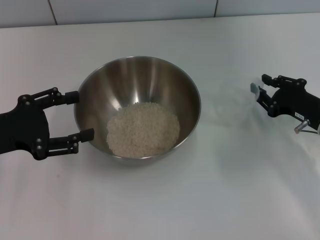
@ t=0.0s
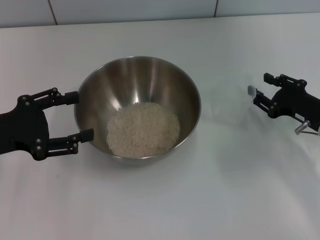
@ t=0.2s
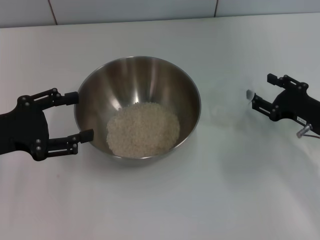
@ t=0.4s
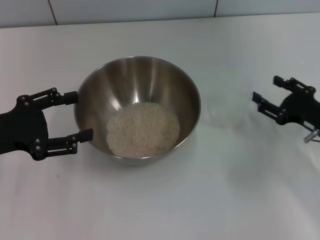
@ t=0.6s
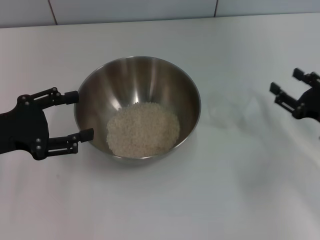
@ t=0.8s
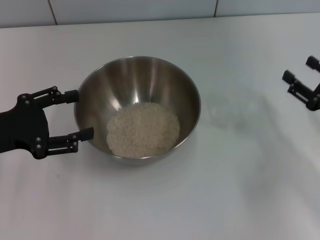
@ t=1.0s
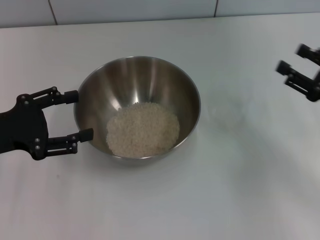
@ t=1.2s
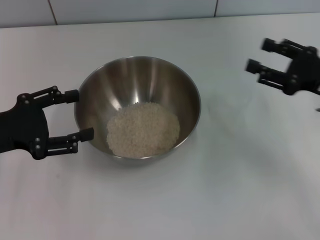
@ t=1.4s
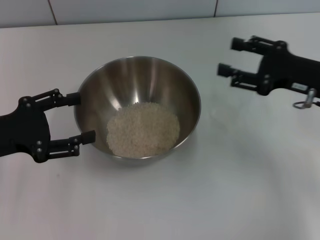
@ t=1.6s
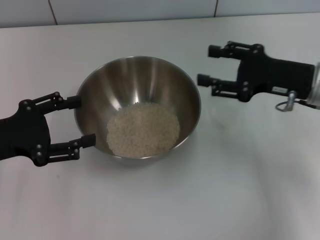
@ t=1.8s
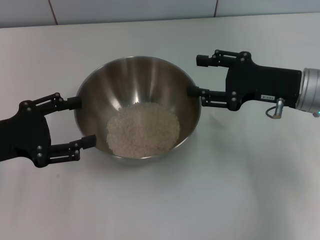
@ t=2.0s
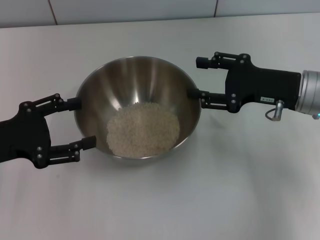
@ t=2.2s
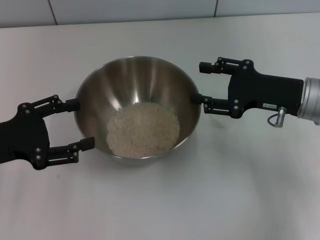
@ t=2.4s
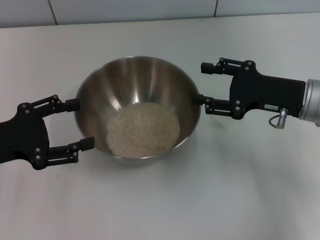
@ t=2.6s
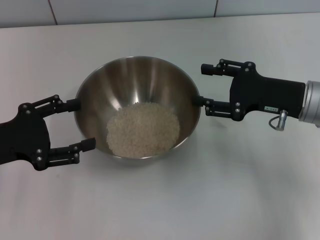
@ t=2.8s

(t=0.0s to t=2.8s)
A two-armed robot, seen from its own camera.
Task of the whole recording: Place the bowl in the middle of the table with one hand and pour the rice from the grain cup into it with the other hand.
t=0.0s - t=1.4s: The right gripper heads upward, covering roughly 10 cm, and opens its fingers.
t=1.4s - t=2.8s: The right gripper goes about 5 cm to the left.

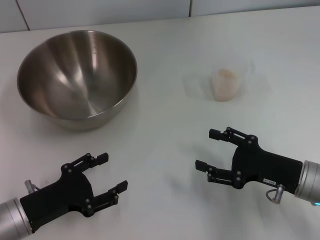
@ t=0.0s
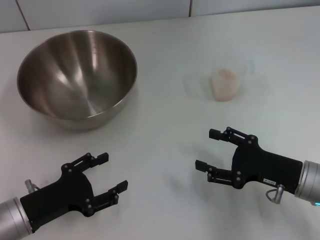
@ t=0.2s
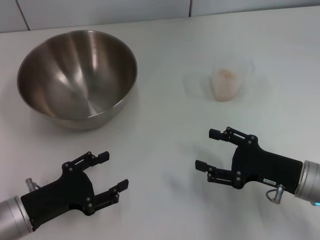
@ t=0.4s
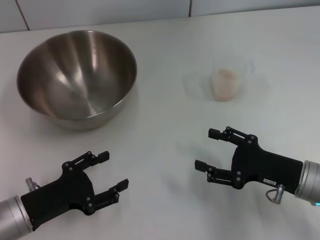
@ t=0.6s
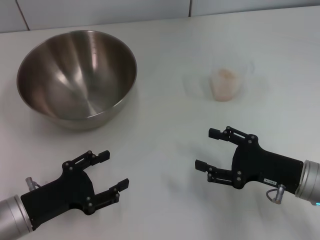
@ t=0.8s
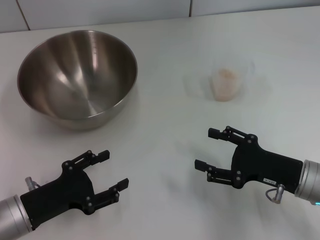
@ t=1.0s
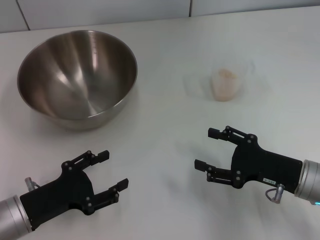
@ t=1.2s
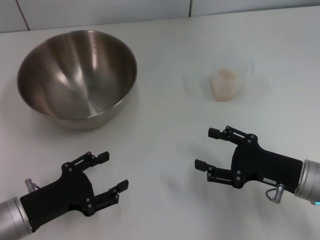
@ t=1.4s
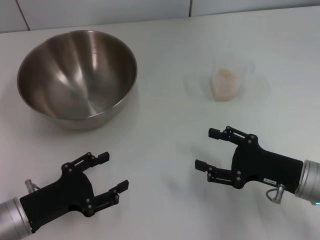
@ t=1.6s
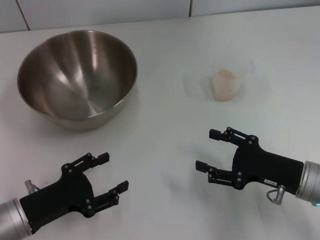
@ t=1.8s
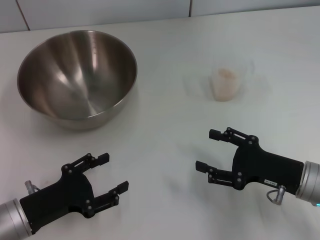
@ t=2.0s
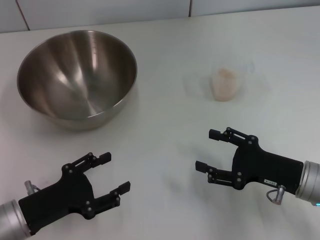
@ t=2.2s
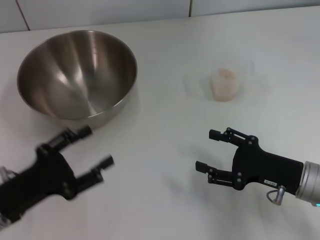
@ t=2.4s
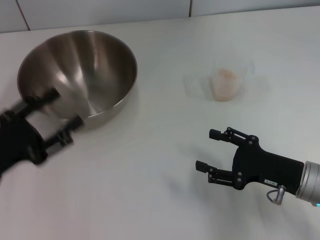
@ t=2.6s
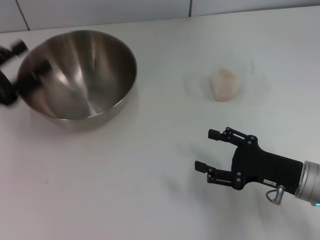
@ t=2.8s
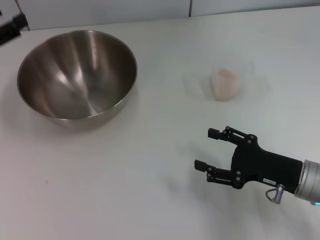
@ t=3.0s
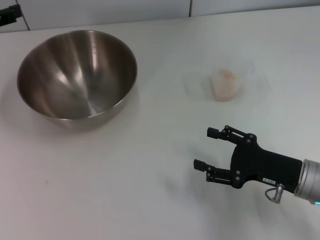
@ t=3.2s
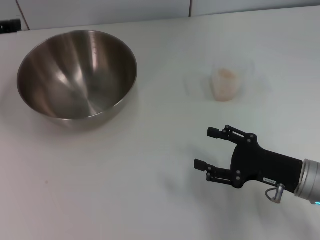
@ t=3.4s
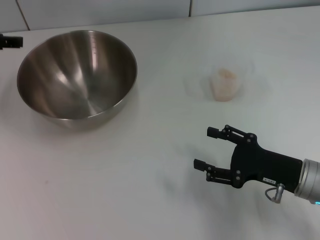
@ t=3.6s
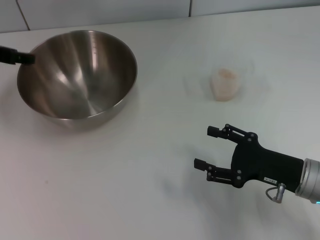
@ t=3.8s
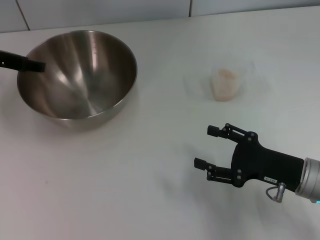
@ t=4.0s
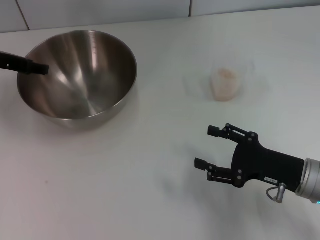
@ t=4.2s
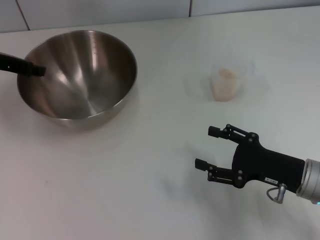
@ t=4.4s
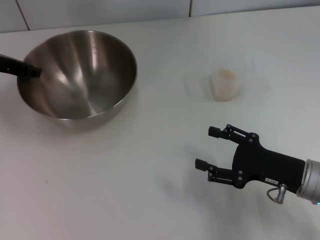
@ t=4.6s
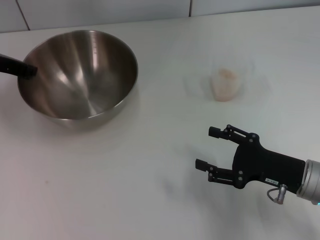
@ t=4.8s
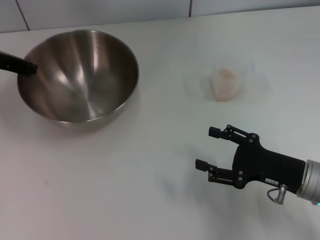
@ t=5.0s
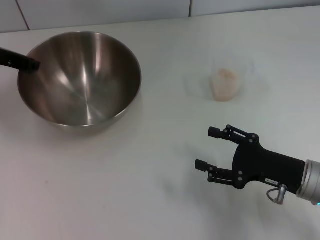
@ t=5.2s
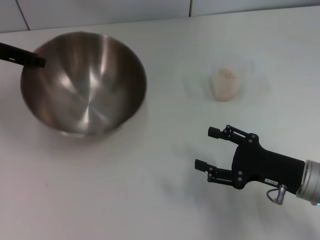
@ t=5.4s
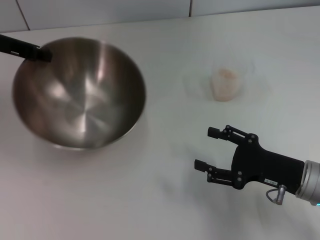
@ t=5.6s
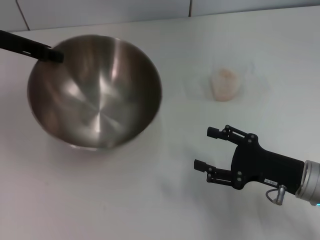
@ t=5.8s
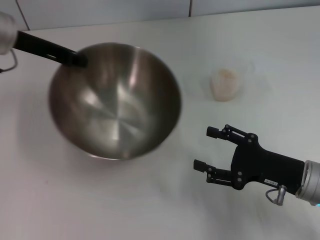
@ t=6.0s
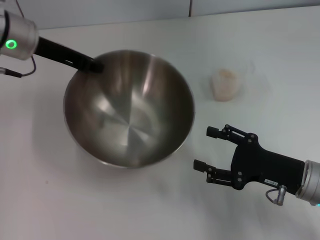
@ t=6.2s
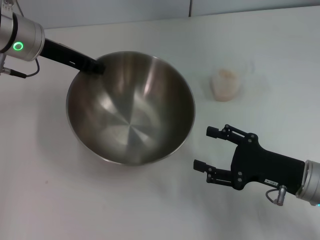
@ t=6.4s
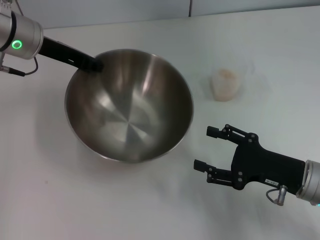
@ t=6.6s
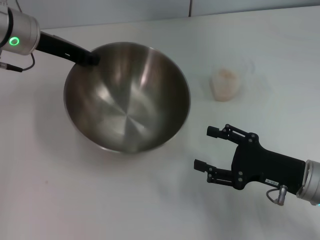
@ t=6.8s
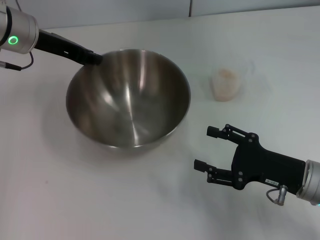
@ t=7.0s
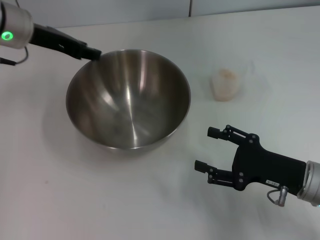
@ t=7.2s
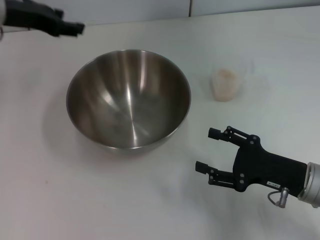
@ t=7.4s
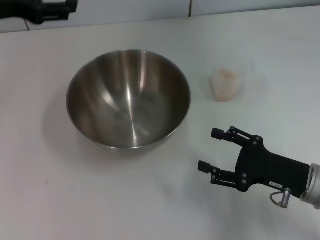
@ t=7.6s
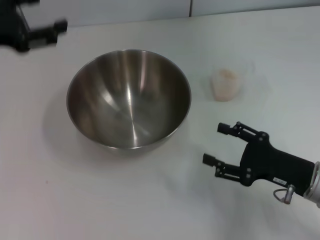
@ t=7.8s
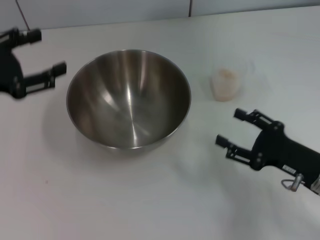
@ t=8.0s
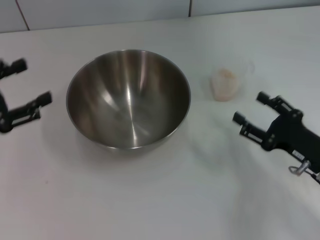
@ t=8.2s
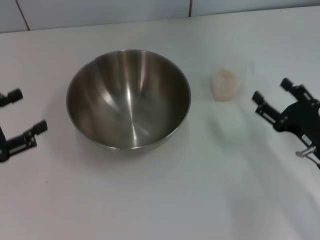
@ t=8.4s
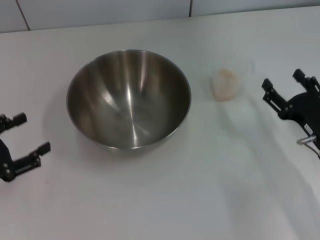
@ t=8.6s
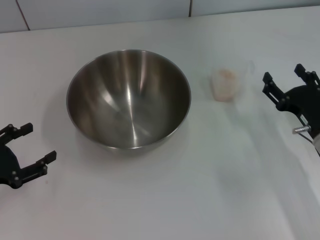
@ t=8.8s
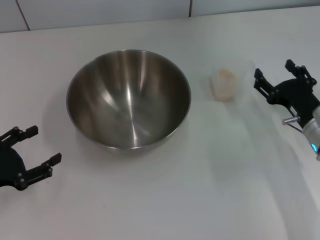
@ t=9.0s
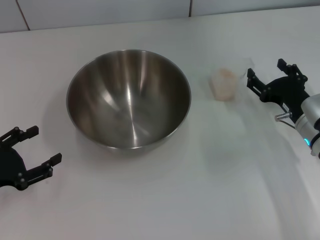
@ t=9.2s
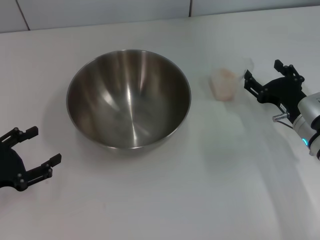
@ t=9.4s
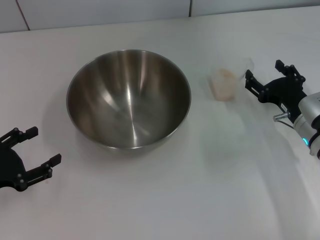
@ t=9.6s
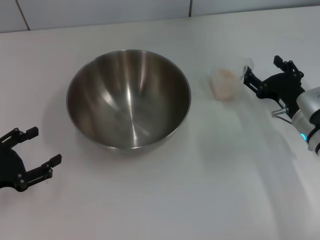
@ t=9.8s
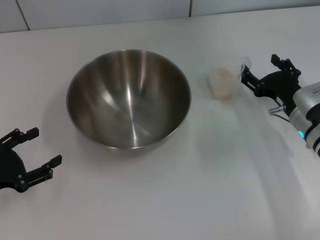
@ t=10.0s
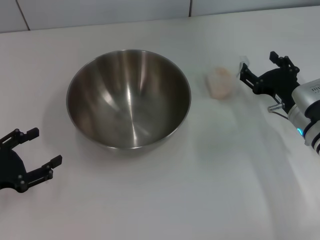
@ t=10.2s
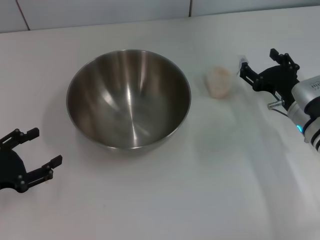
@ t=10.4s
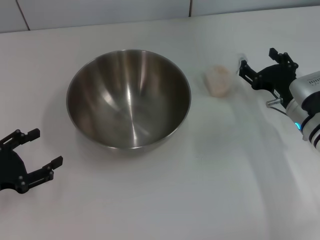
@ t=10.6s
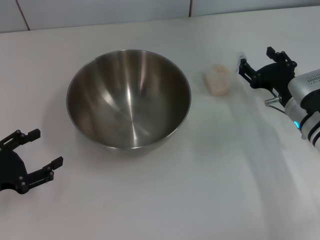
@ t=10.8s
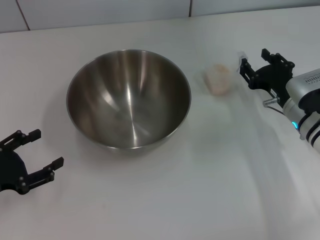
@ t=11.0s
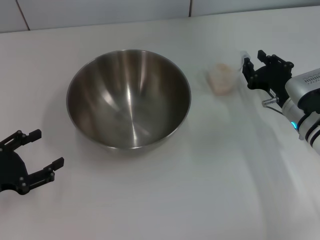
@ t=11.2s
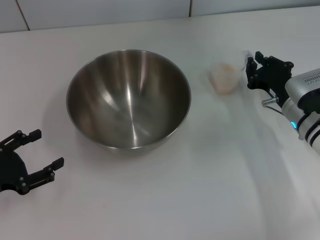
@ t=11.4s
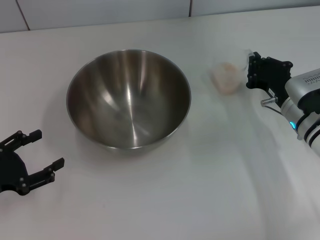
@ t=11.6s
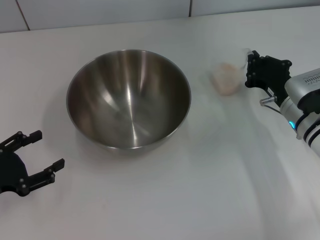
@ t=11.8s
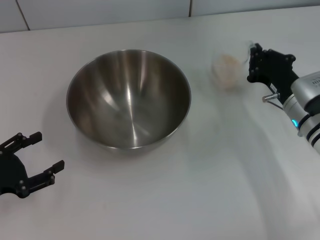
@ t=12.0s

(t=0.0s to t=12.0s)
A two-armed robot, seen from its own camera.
Task of the whole recording: Place the bowl in the middle of the table with one hand and pour the rice from the grain cup into it with the other hand.
Step, t=0.0s - t=5.6s: Pick up the bowl with the left gripper.
Step, t=5.8s - t=7.4s: Place the bowl in the center of view with the left gripper.
t=0.0s - t=1.6s: Neither gripper changes place.
t=1.6s - t=3.0s: The left gripper heads upward, forward and to the left, covering roughly 20 cm.
t=3.0s - t=4.4s: The left gripper moves forward, roughly 10 cm.
t=4.4s - t=6.0s: The left gripper closes up.
t=6.0s - t=7.6s: The left gripper ends up approximately 5 cm from where it was, and opens its fingers.
t=7.6s - t=9.0s: The right gripper goes roughly 5 cm forward. The left gripper heads downward, backward and to the left, covering about 25 cm.
t=9.0s - t=10.4s: There are only small adjustments of the grippers.
t=10.4s - t=12.0s: The right gripper closes up.

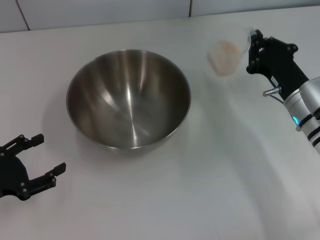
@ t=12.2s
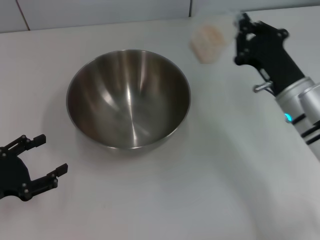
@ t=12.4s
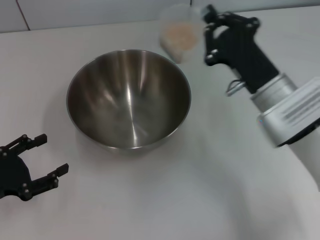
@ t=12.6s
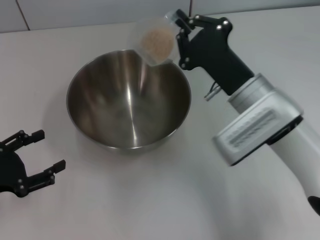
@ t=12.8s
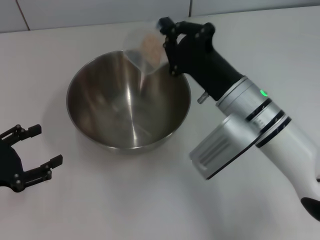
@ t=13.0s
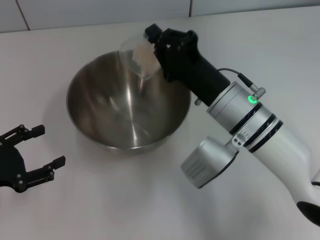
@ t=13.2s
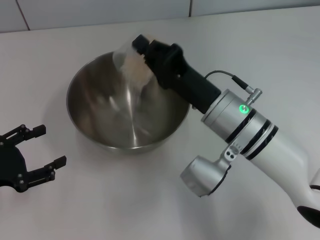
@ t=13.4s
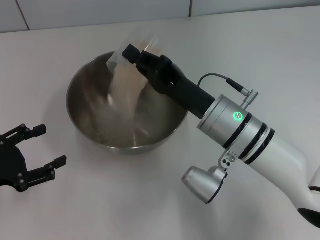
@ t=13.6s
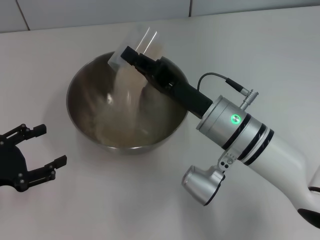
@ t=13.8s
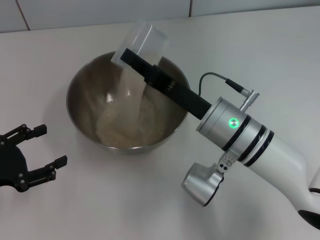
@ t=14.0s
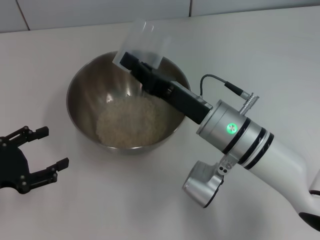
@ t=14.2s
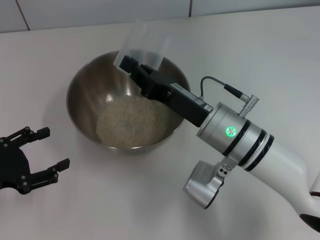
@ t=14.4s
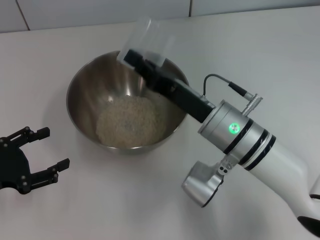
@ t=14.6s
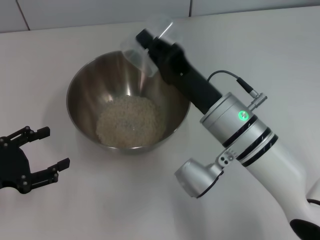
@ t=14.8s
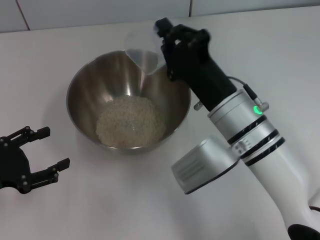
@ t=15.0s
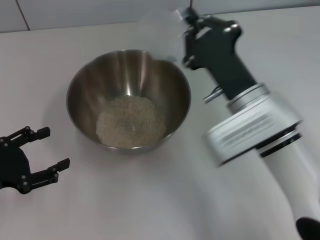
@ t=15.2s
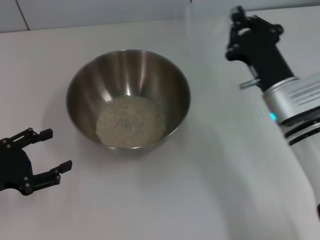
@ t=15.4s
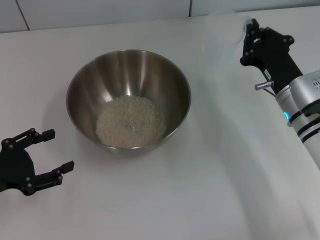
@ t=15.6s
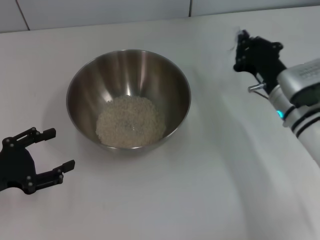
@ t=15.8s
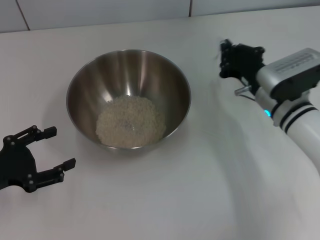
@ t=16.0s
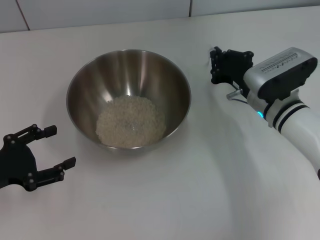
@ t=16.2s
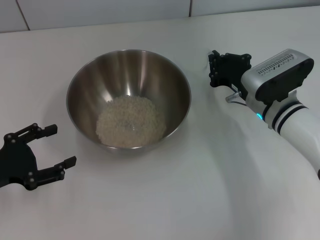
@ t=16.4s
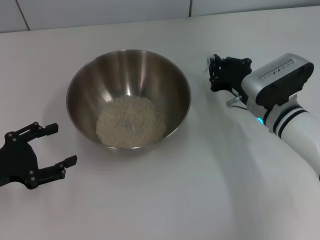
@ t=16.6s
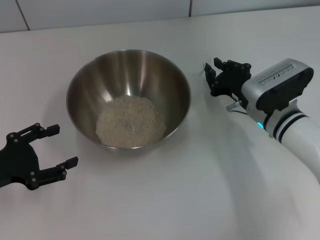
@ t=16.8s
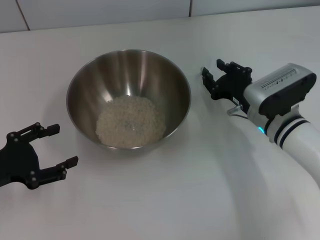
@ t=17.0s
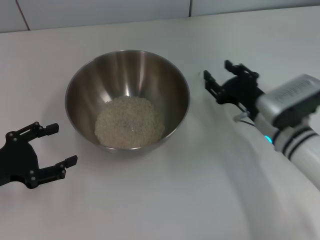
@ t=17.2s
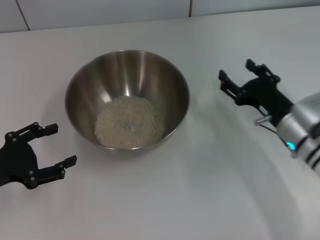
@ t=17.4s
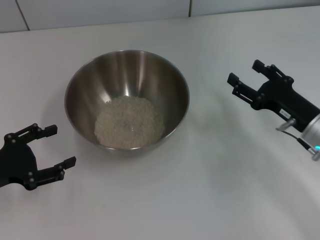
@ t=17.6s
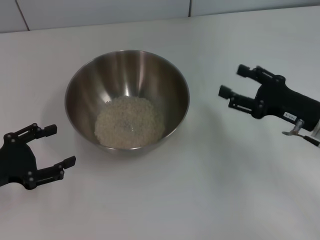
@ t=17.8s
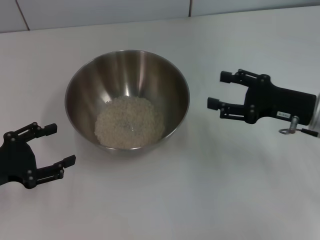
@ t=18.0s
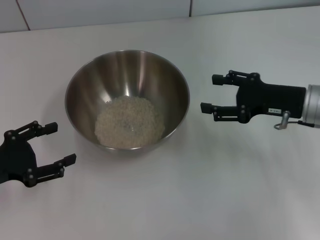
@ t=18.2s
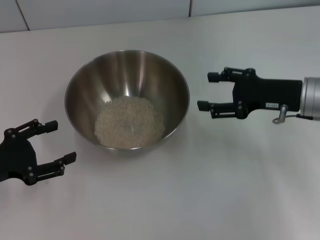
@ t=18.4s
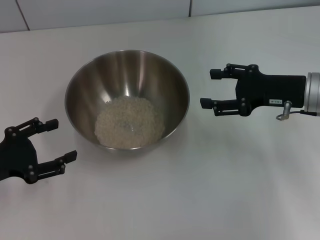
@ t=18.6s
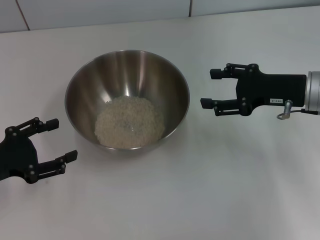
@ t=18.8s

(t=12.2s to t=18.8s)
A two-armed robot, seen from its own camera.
Task of the whole recording: Place the bowl in the middle of the table with one hand and pour the rice from the grain cup into it with the other hand.
Step, t=12.4s - t=15.6s: Pour the rice from the cup into the bowl with the right gripper.
Step, t=15.8s - t=17.4s: Place the cup on the table with the right gripper.
t=12.2s - t=13.8s: The right gripper goes approximately 15 cm to the left.
t=13.8s - t=15.4s: The right gripper goes roughly 10 cm to the right.
t=15.4s - t=17.2s: The right gripper ends up roughly 5 cm from where it was, and opens up.
t=17.2s - t=18.8s: The right gripper goes about 10 cm upward and to the right, and opens.
